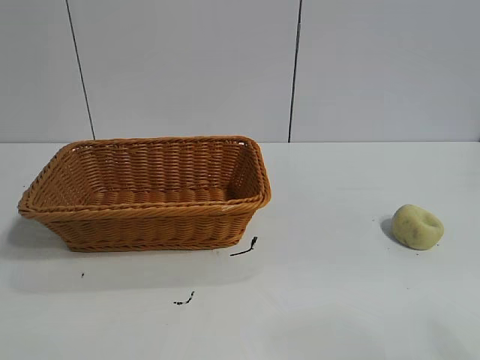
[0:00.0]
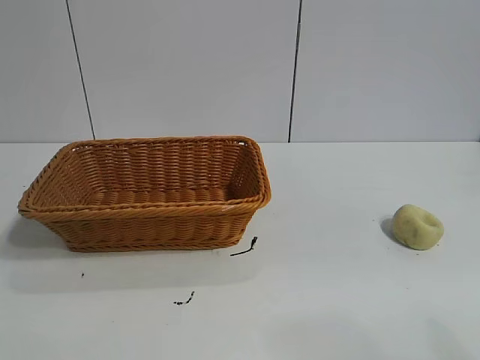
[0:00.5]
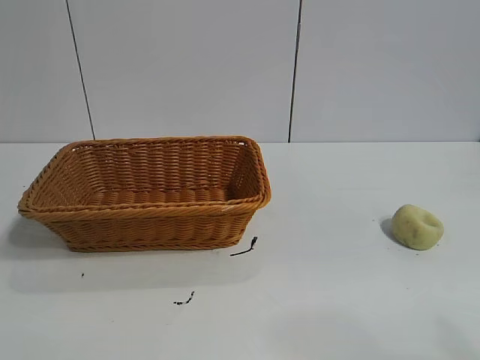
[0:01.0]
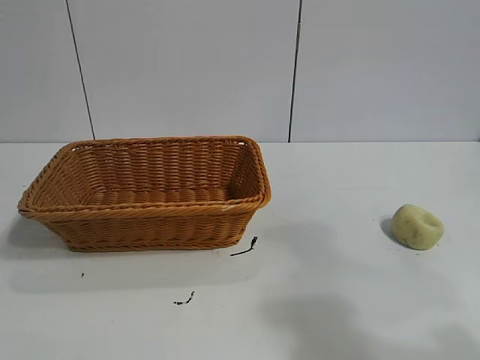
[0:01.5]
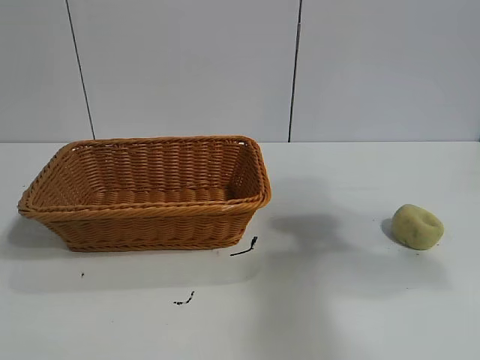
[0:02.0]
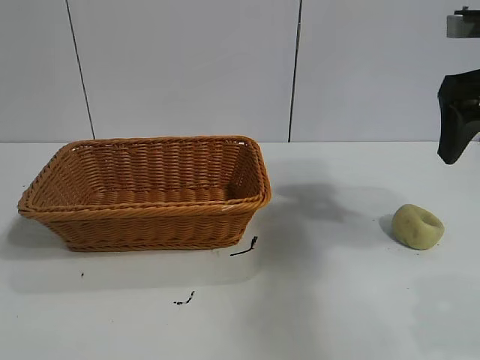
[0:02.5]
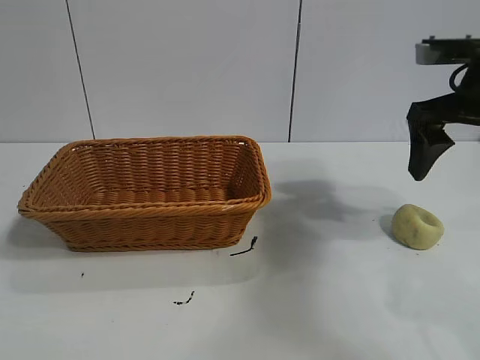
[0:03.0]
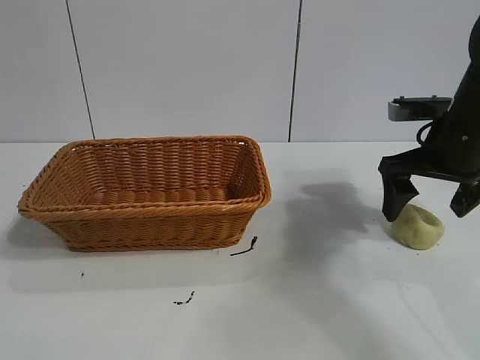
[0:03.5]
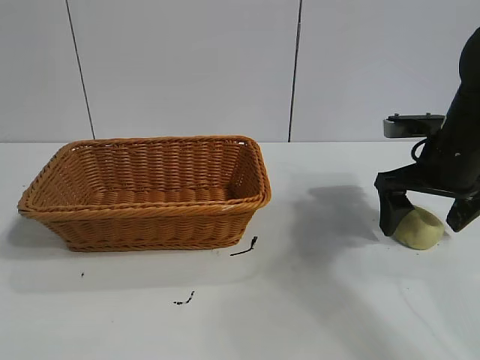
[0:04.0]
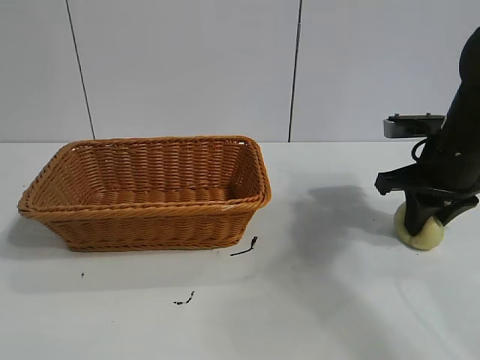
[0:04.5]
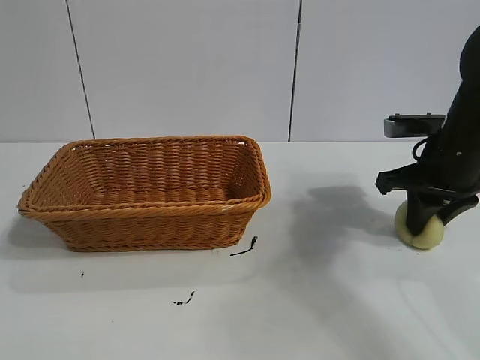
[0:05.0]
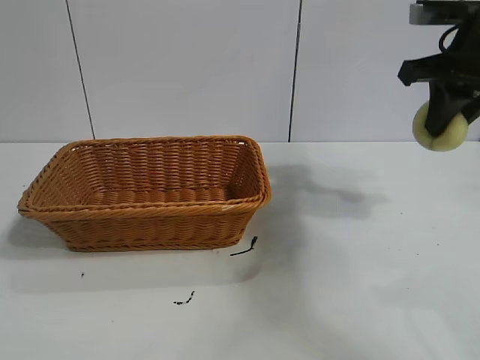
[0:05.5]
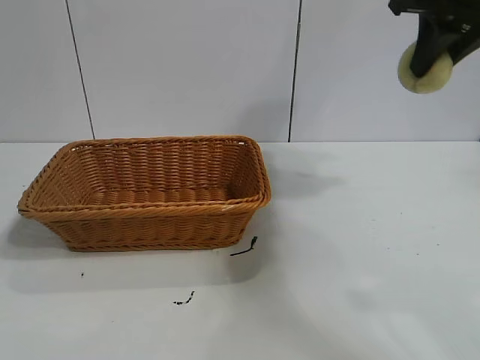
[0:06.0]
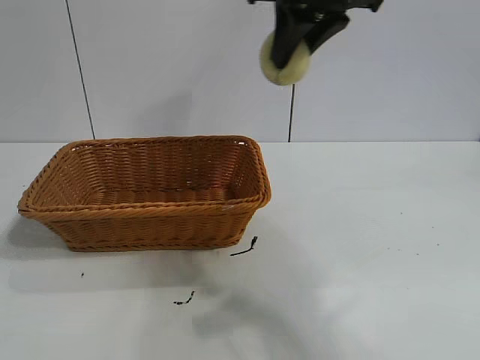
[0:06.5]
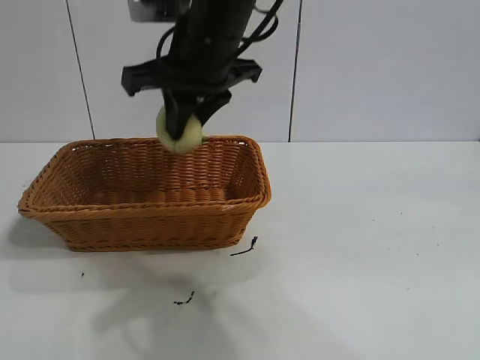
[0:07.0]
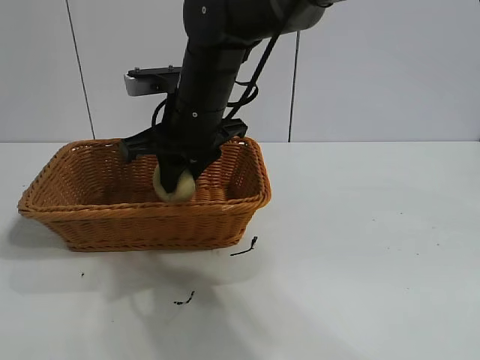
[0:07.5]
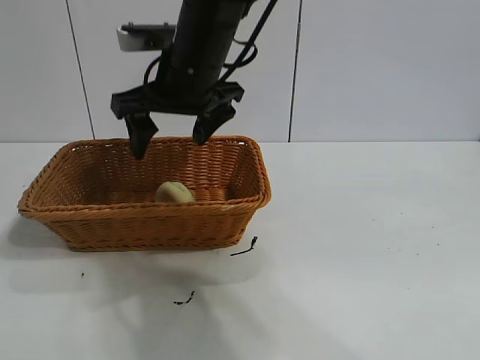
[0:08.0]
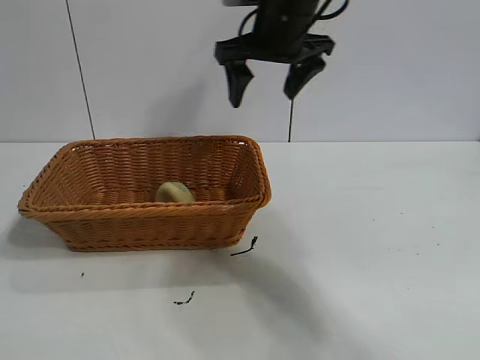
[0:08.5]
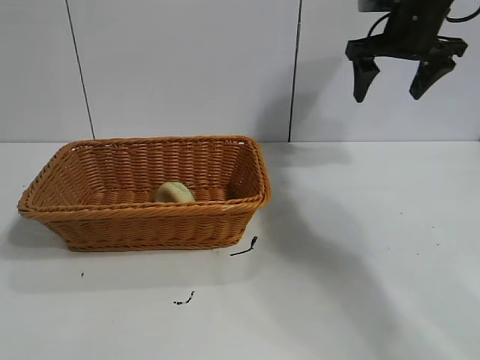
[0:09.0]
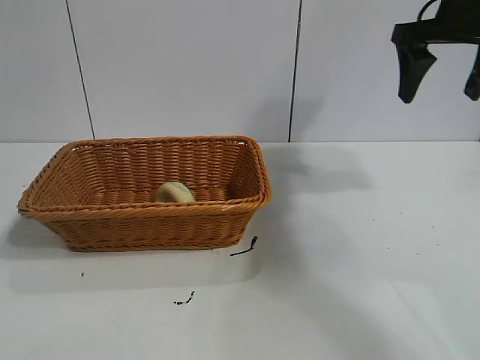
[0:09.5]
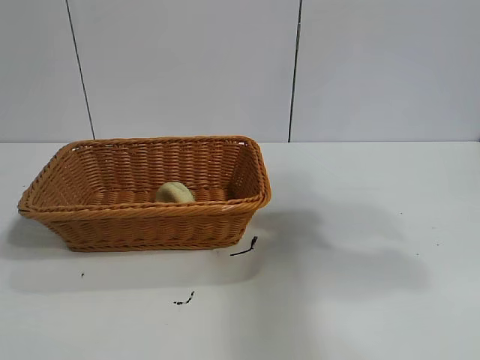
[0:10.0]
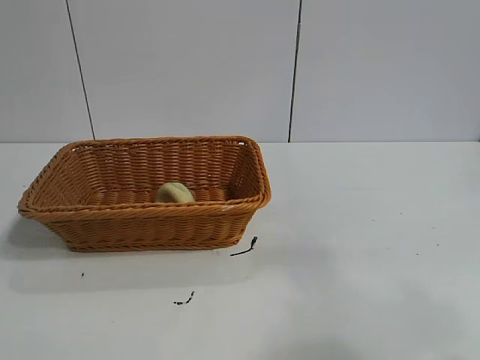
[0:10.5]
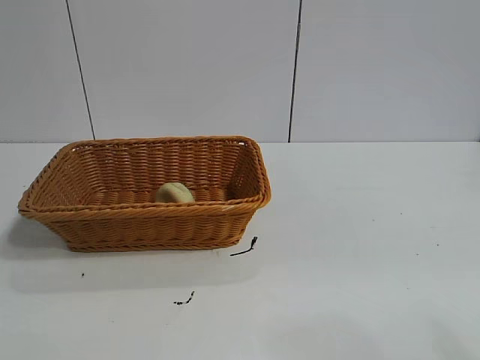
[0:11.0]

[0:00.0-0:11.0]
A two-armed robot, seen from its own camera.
Task of the whole recording: pick up the egg yolk pastry and put it into the basket.
Step, 0:01.0 to 0:04.0: Grasp egg yolk pastry with right gripper.
Step, 0:05.0 to 0:07.5: Place the egg yolk pastry in the basket with right gripper.

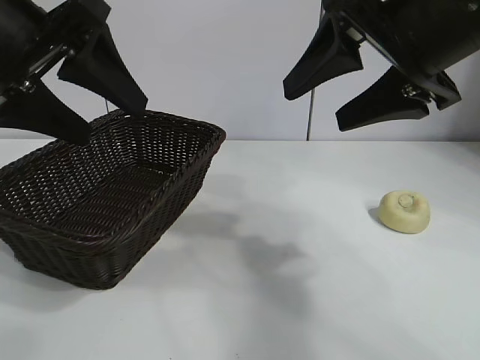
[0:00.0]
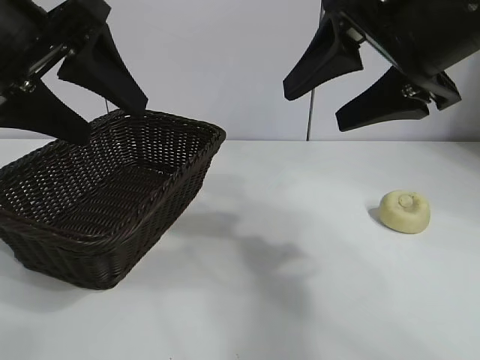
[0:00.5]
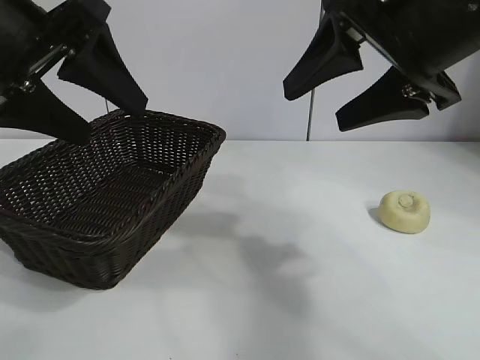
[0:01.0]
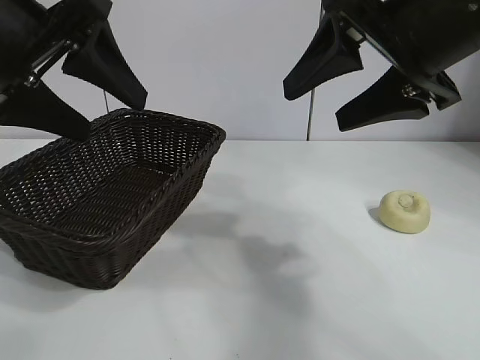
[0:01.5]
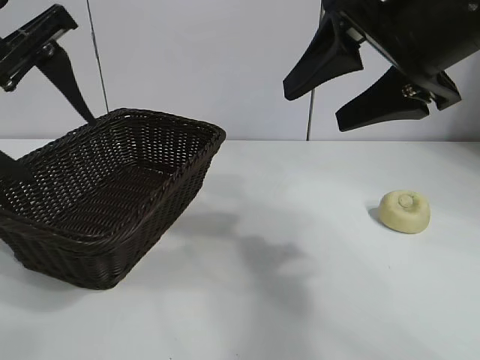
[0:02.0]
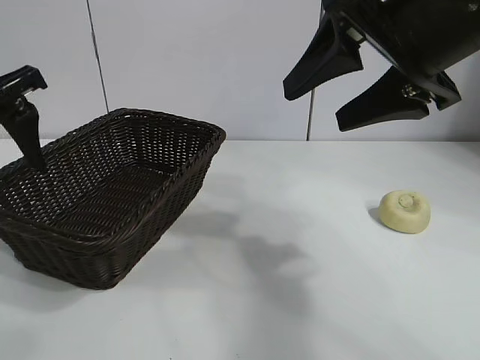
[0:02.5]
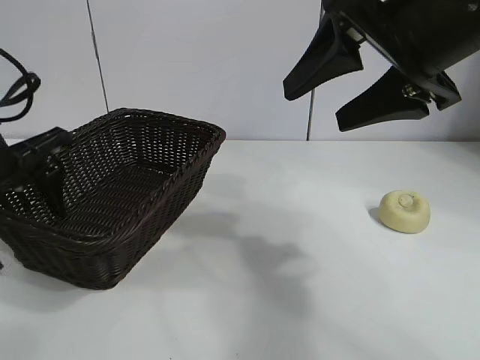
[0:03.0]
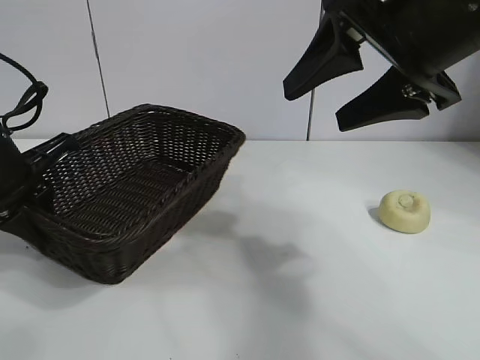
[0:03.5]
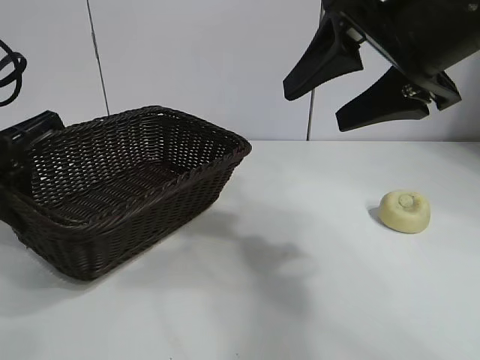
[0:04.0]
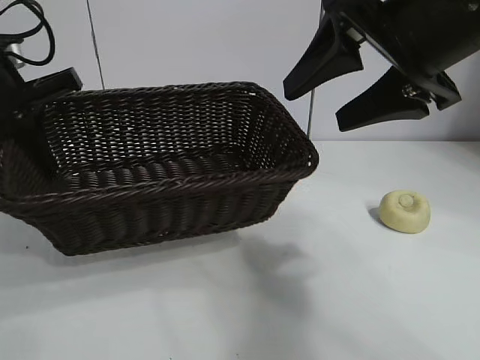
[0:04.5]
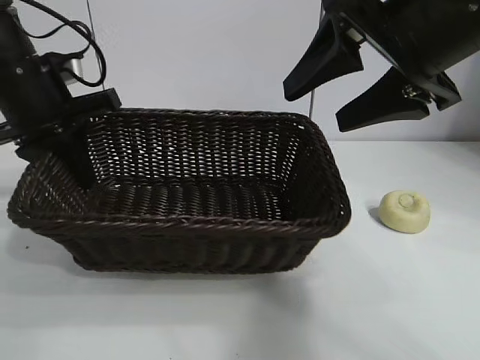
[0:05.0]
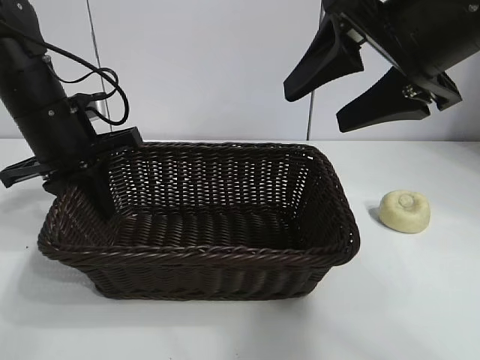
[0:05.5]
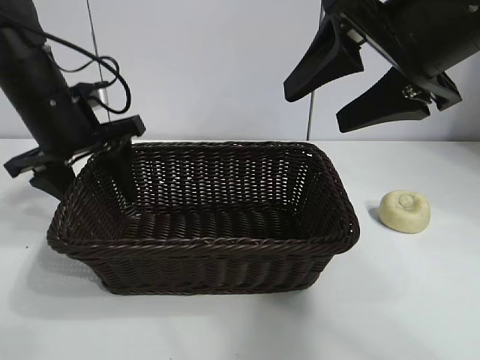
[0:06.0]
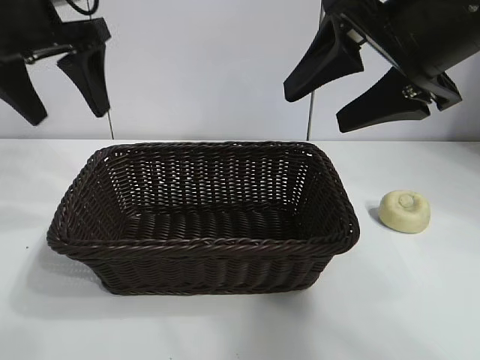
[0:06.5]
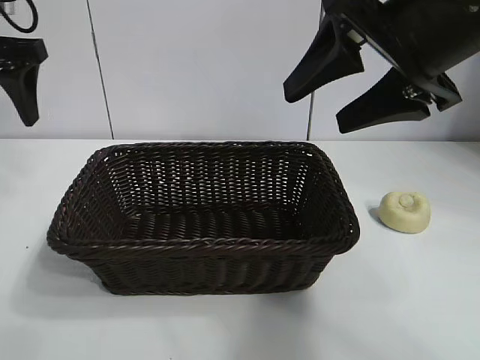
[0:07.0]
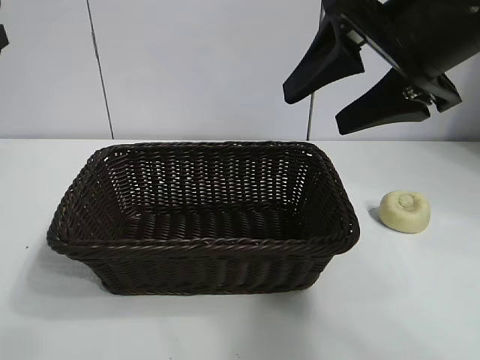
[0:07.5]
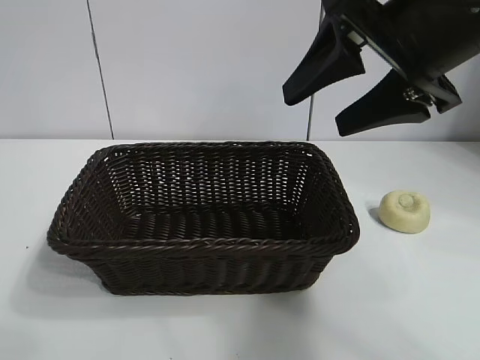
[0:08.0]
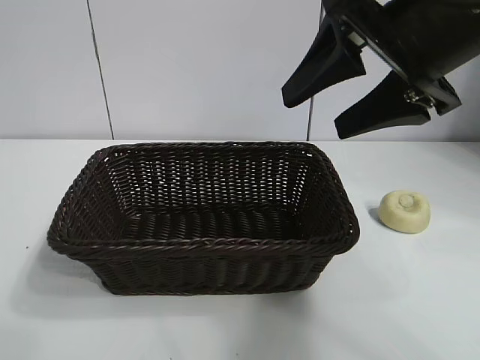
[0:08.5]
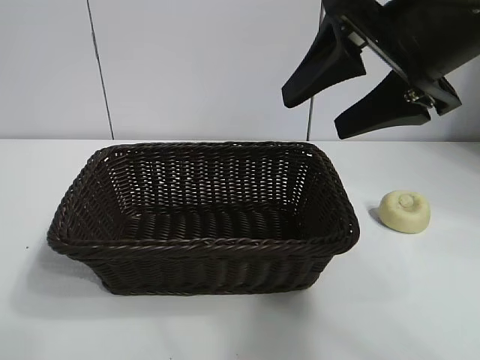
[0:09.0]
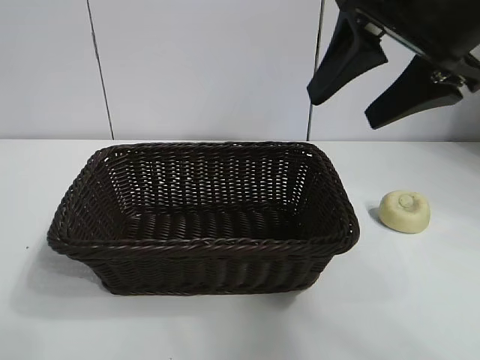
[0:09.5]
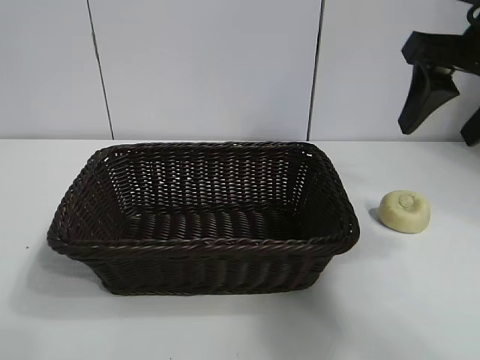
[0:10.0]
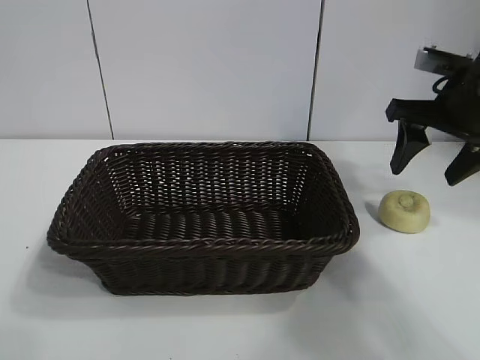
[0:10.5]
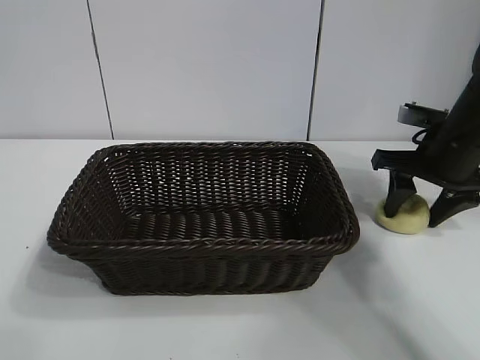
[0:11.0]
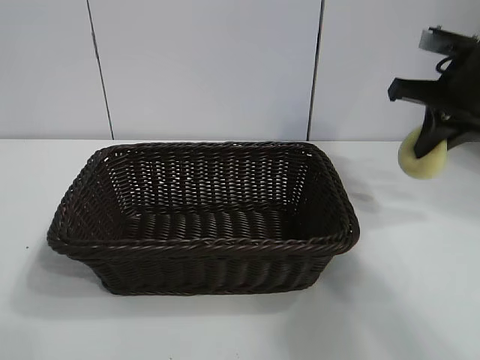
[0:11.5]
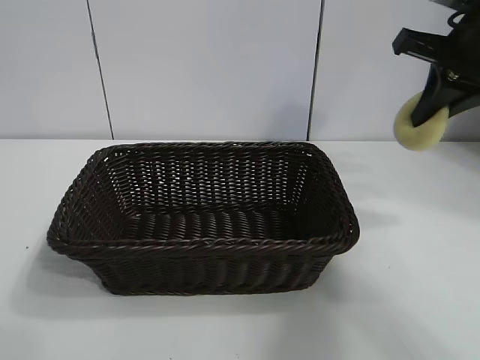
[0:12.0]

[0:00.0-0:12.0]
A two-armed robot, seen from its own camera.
Task of the whole recording: pick up the egg yolk pastry and put it into the basket.
Step, 0:01.5 to 0:03.5: Grasp the basket with left gripper.
Step, 0:04.0 to 0:06.0: Place the basket in the center of view with left gripper.
Step, 0:06.5 to 0:11.0: Grasp egg yolk pastry with right gripper.
